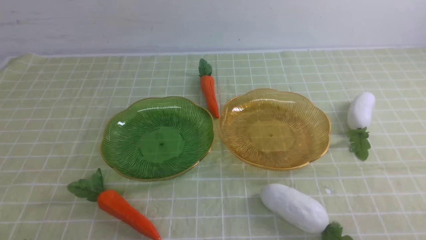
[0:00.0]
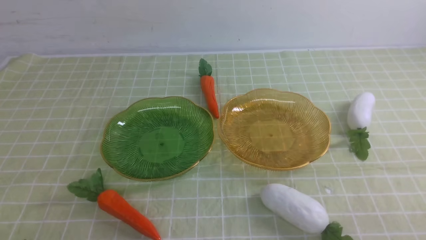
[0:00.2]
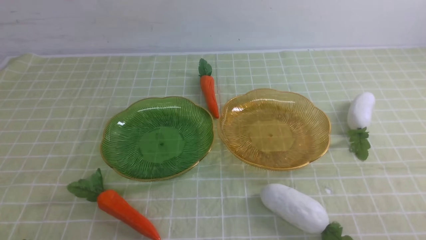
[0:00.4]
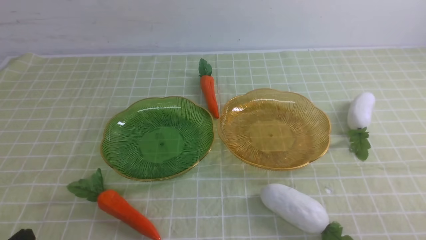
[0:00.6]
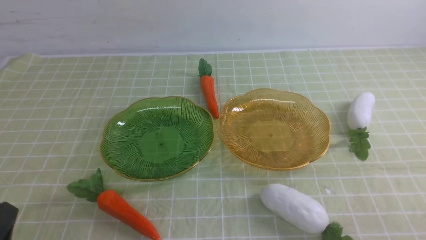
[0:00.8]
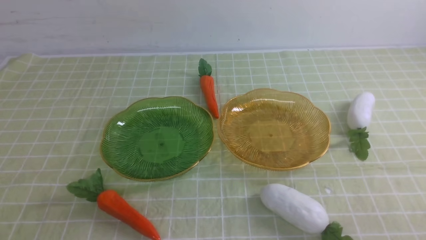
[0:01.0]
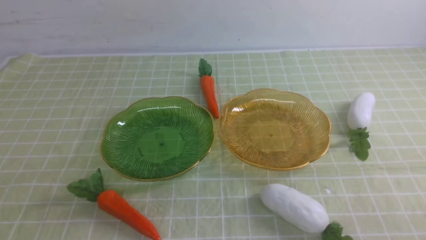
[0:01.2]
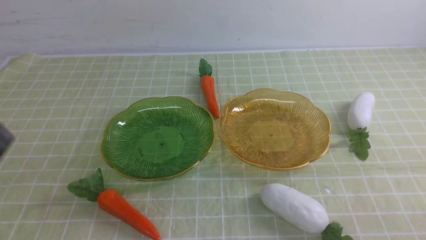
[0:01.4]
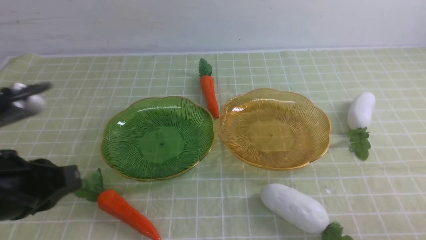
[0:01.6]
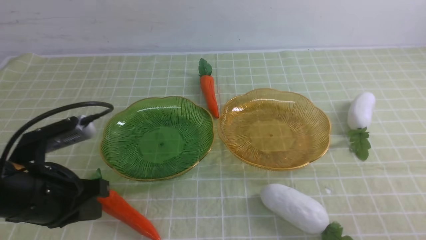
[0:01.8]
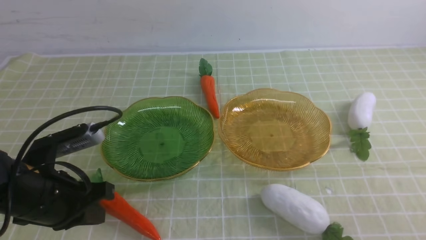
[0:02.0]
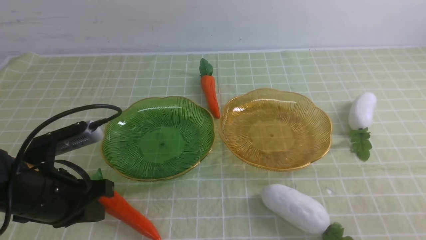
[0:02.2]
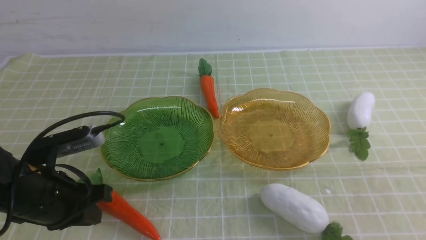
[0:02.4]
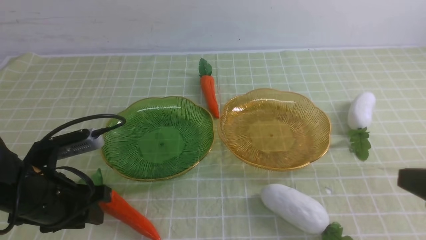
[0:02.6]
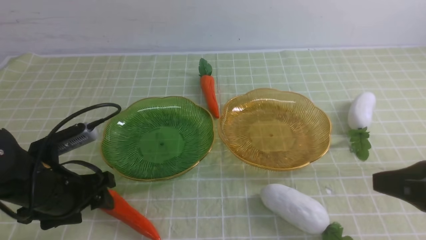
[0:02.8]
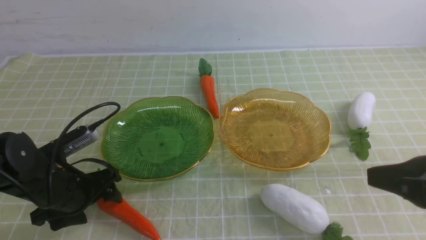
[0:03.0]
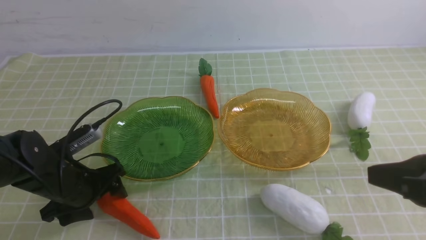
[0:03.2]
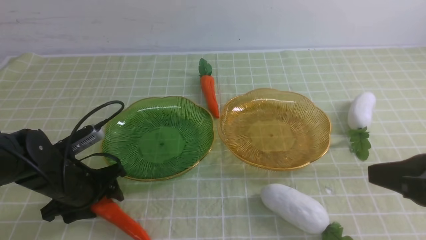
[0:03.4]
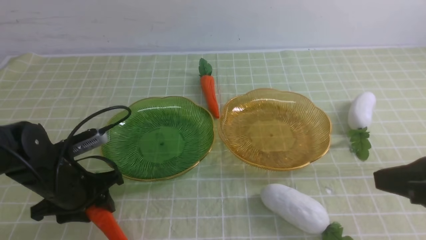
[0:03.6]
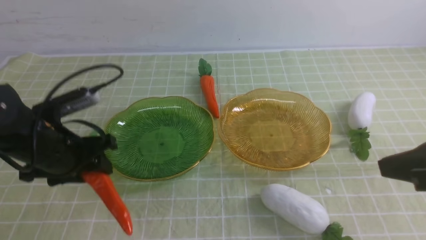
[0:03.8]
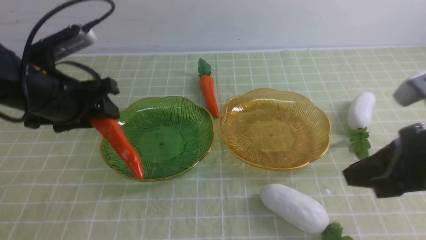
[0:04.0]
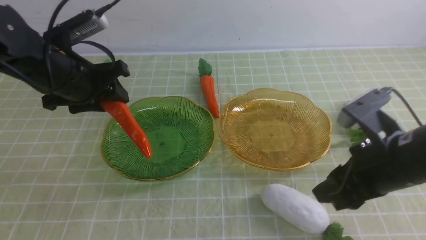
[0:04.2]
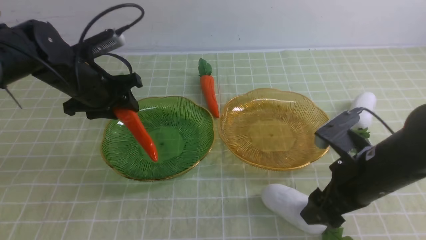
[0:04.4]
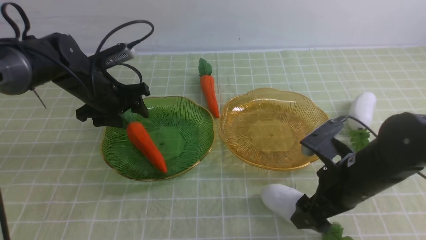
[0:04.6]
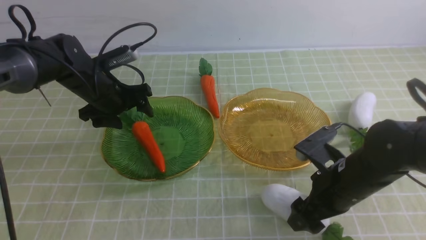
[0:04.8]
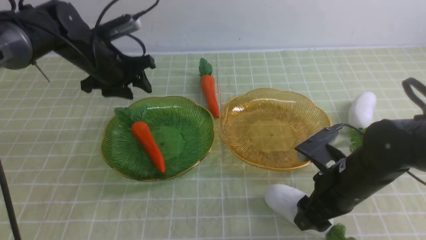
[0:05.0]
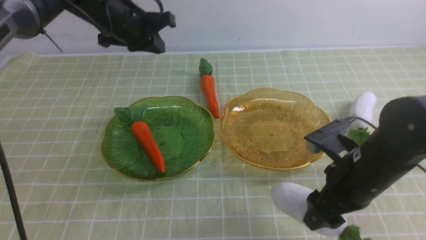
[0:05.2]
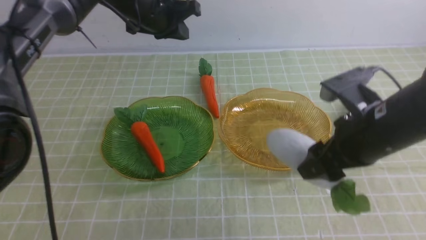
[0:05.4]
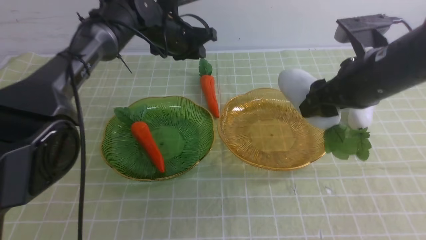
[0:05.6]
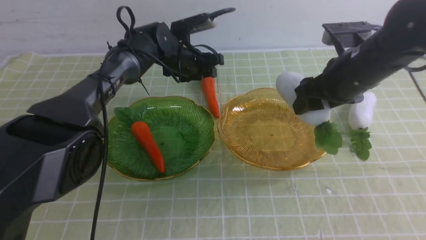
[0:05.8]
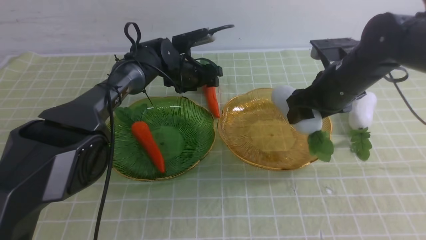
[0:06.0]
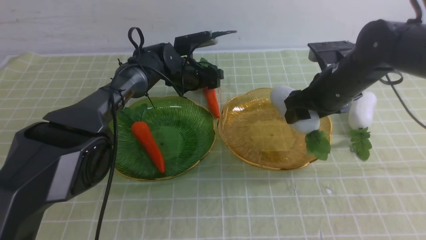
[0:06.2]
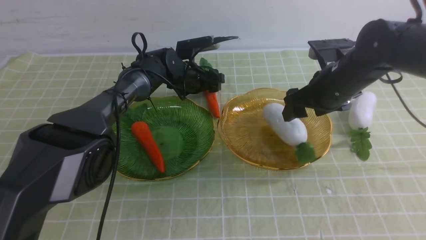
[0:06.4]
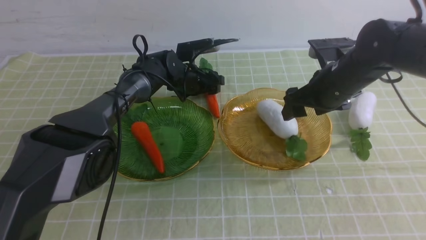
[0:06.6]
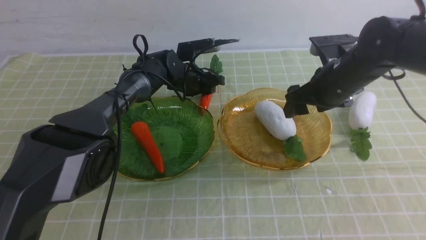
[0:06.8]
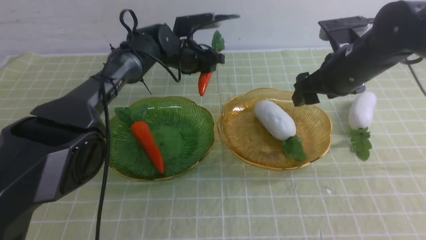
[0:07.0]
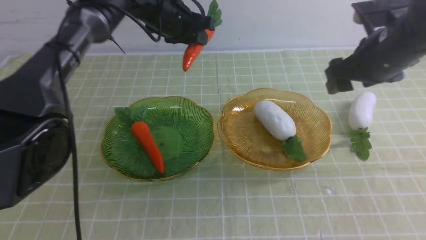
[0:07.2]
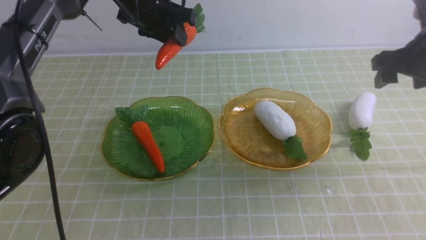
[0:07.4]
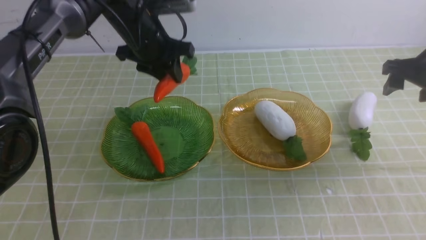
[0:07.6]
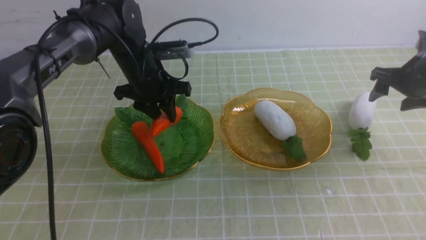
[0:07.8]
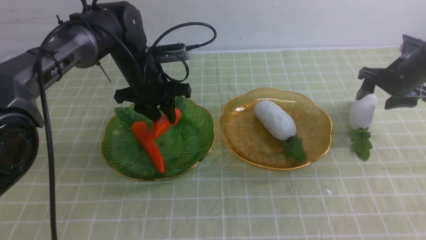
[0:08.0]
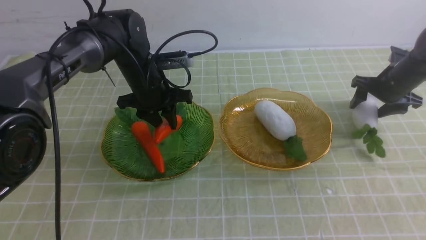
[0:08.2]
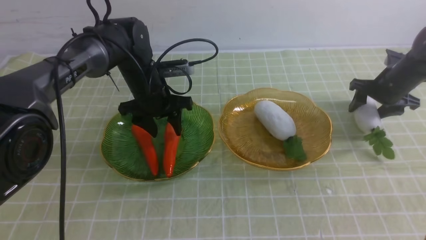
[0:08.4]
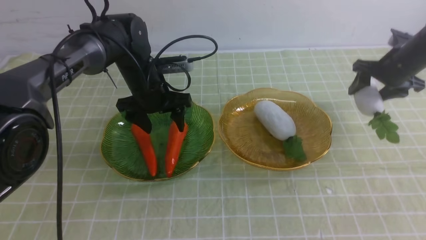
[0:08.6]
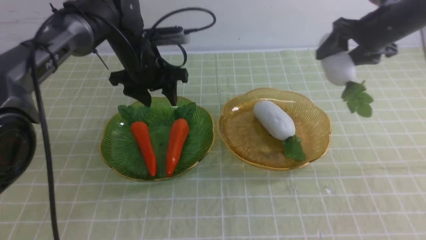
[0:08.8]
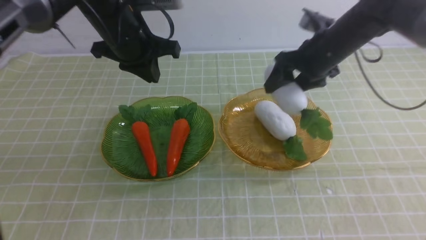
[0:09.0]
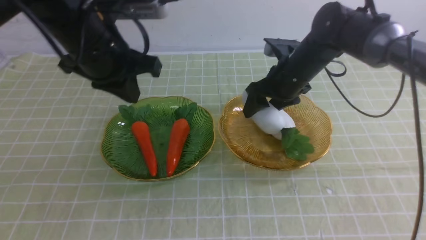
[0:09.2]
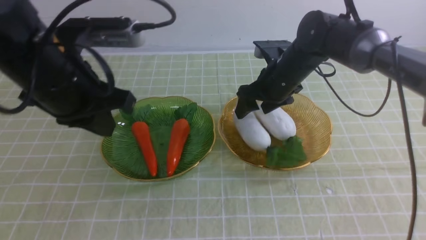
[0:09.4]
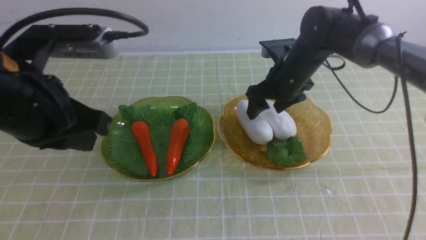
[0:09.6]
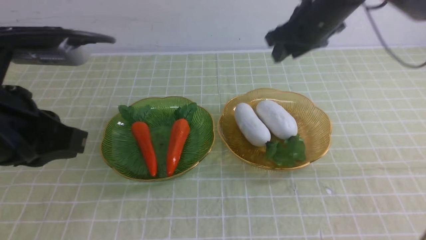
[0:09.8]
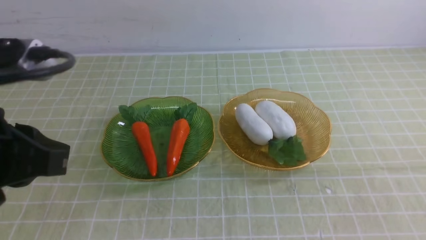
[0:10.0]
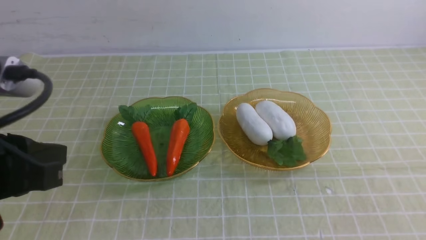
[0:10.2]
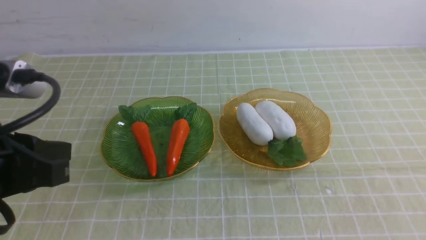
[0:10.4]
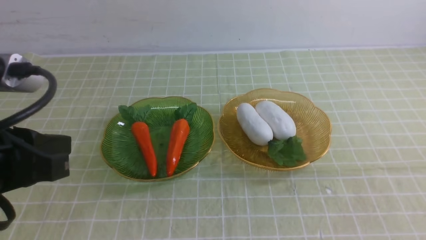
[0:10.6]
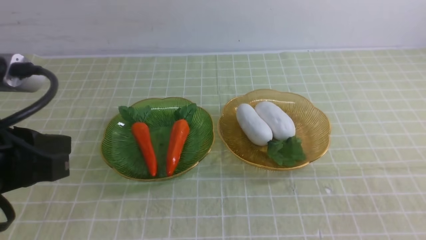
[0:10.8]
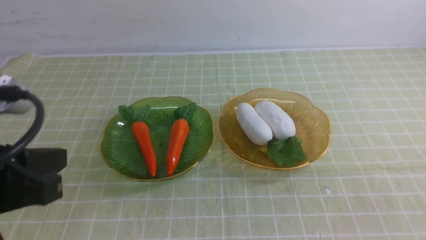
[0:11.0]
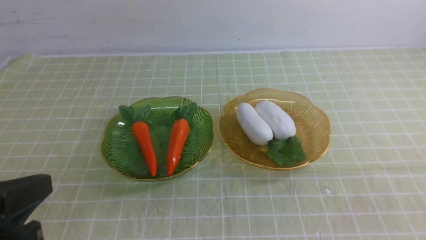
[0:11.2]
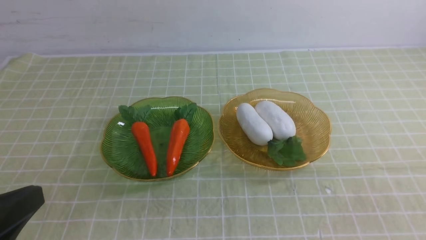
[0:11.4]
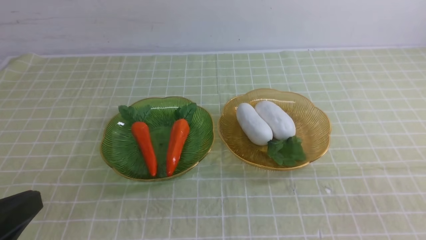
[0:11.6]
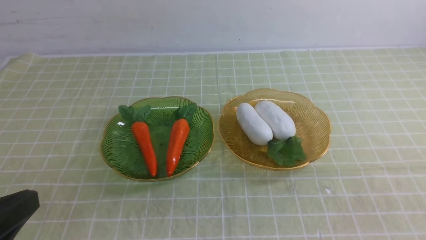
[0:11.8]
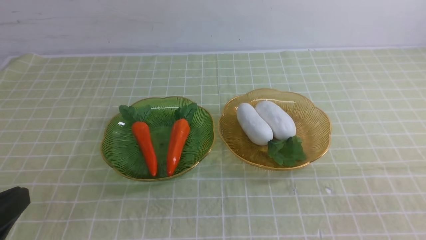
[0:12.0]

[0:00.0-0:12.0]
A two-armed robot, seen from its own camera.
Step, 0:00.0 to 0:05.8: use the left arm to grab a carrot and put it into the left plate.
Step, 0:06.0 to 0:07.4: use the right arm to grab a radish and put it into the right plate.
Step, 0:07.6 to 0:09.0: use the left arm to grab a carrot and put it into the left plate.
Step, 0:09.2 to 0:10.0: use the right arm to grab a radish and put it into the right plate.
0:00.0 to 0:01.6: The left gripper travels upward and forward by about 15 cm.
0:01.6 to 0:03.0: The left gripper heads downward and forward, covering roughly 15 cm, and opens its fingers. The right gripper is displaced upward and forward by approximately 15 cm.
0:03.0 to 0:04.4: The right gripper shifts roughly 15 cm forward, downward and to the left, and opens. The left gripper moves forward and upward, roughly 15 cm.
0:04.4 to 0:06.0: The left gripper goes roughly 20 cm forward, to the right and downward, and closes, then reopens, while the right gripper travels forward by some 15 cm.
0:06.0 to 0:07.6: The left gripper is displaced upward and backward by about 15 cm, and closes up; the right gripper heads to the right, covering approximately 15 cm.
0:07.6 to 0:09.0: The right gripper is displaced to the left by some 15 cm, while the left gripper travels backward by some 5 cm, travels downward and back again, some 10 cm each way, and opens and closes again.
0:09.0 to 0:10.4: The right gripper goes roughly 40 cm backward and upward, and closes. Meanwhile the left gripper moves backward, roughly 25 cm.
0:10.4 to 0:12.0: The left gripper travels downward and backward by about 10 cm.
